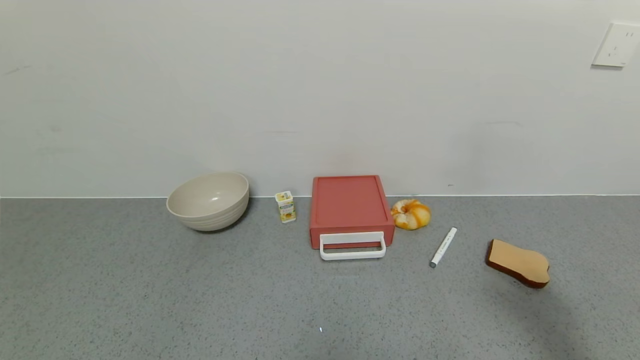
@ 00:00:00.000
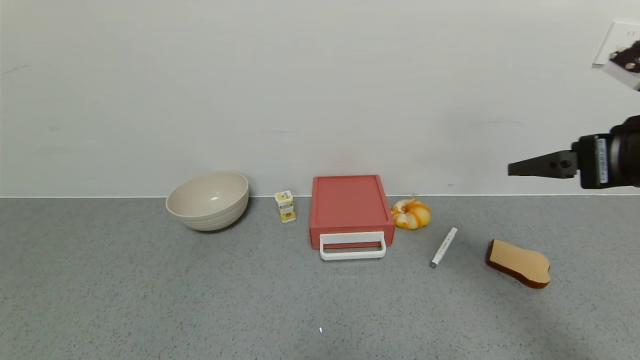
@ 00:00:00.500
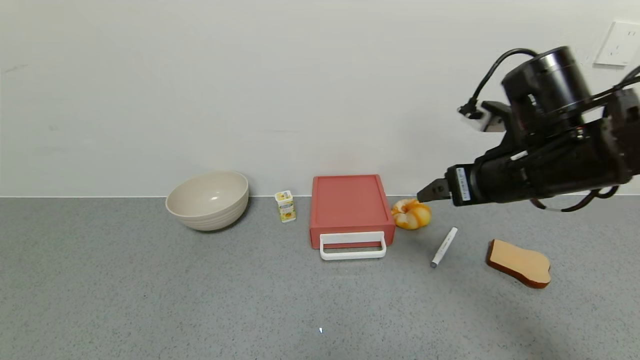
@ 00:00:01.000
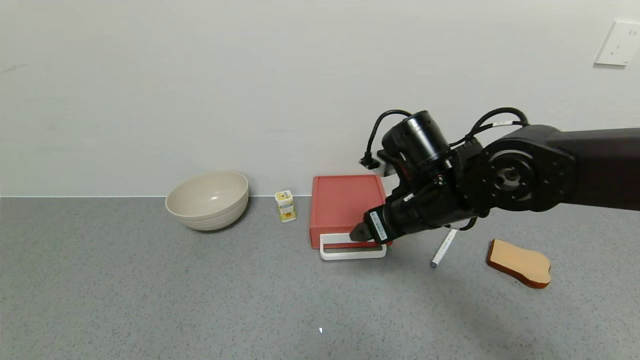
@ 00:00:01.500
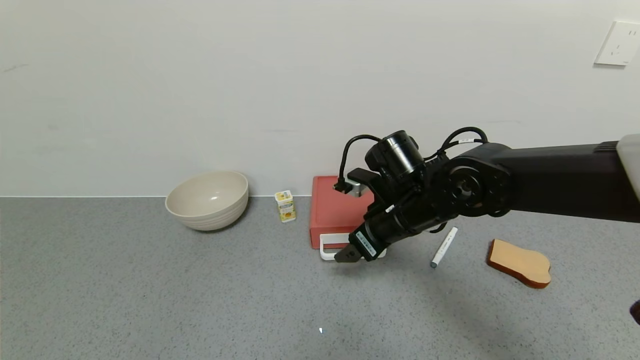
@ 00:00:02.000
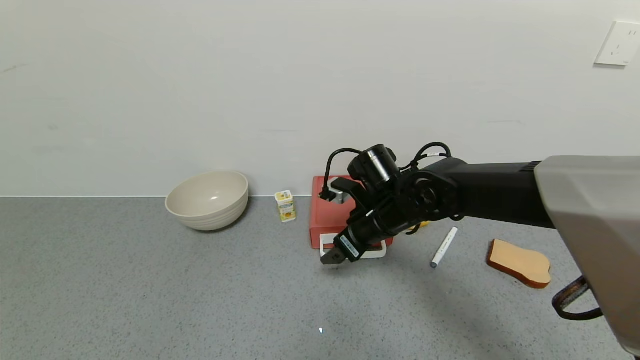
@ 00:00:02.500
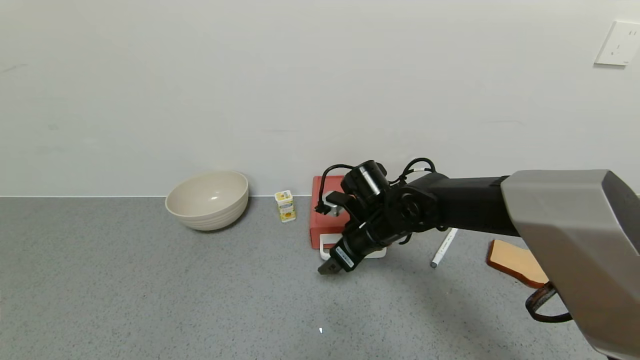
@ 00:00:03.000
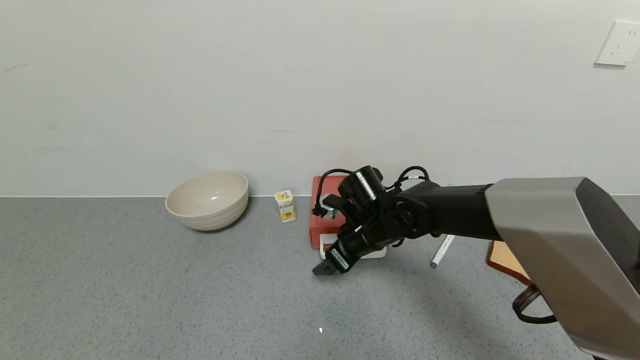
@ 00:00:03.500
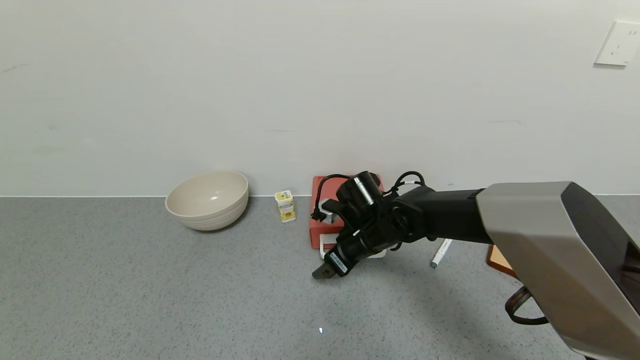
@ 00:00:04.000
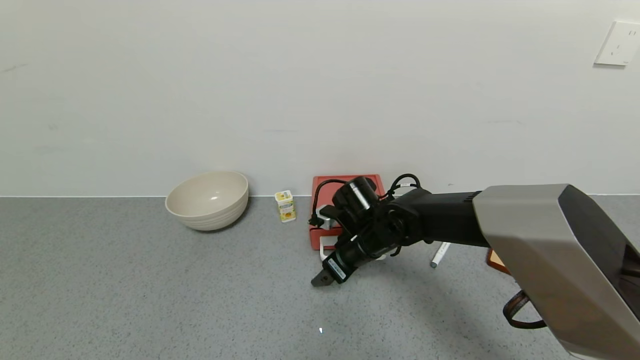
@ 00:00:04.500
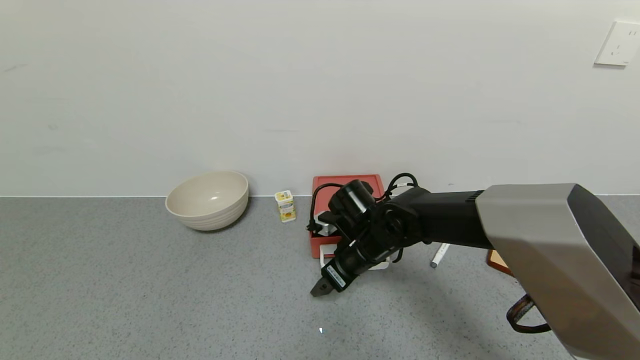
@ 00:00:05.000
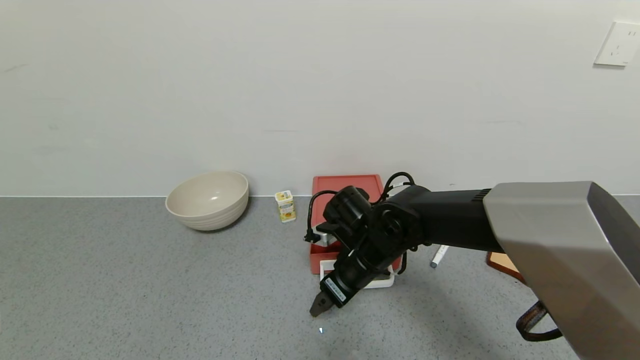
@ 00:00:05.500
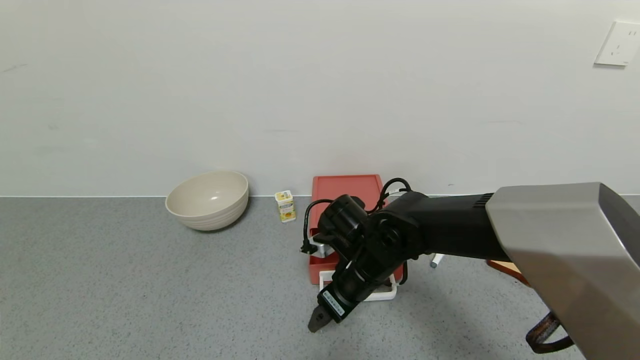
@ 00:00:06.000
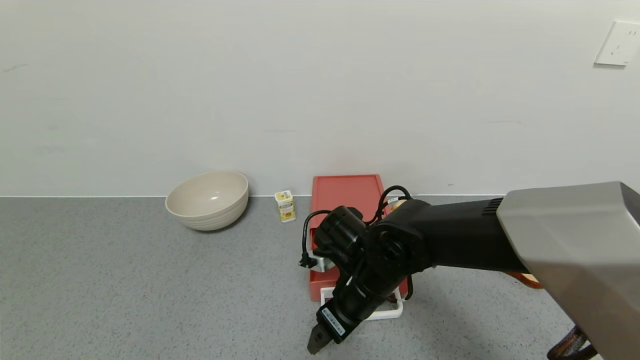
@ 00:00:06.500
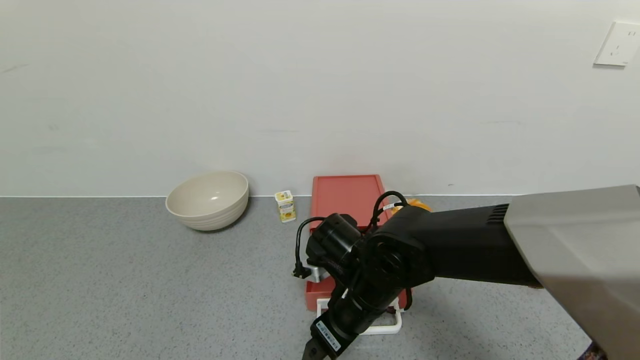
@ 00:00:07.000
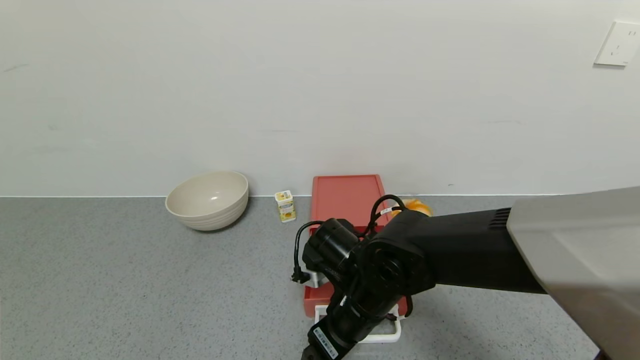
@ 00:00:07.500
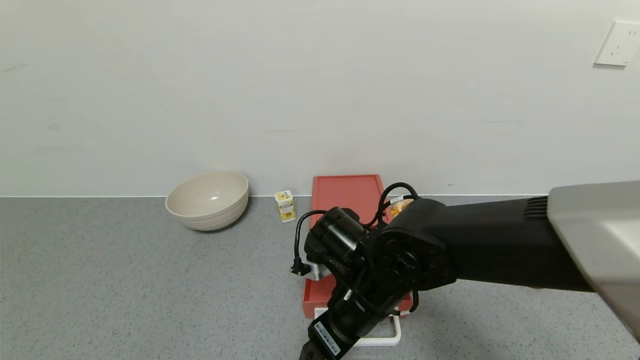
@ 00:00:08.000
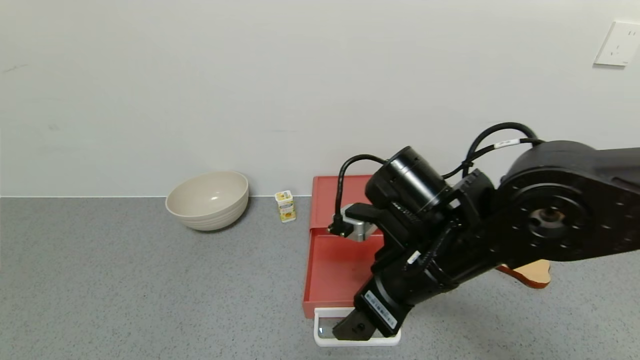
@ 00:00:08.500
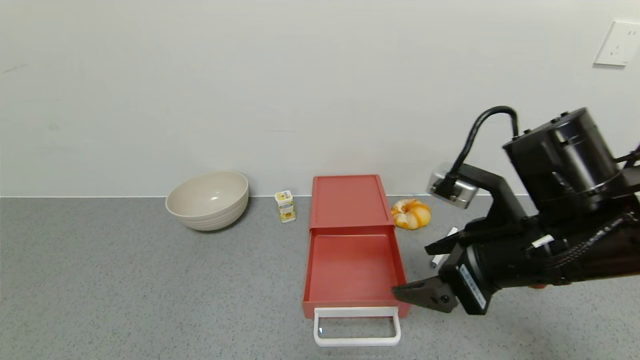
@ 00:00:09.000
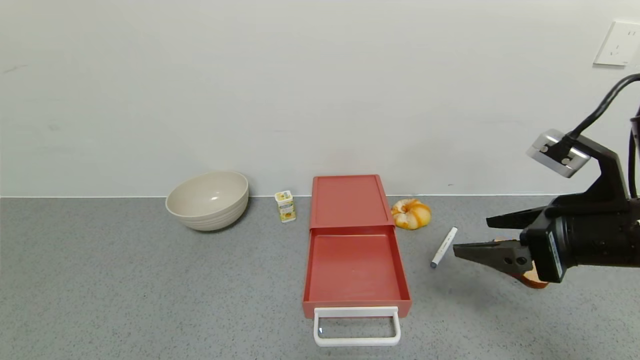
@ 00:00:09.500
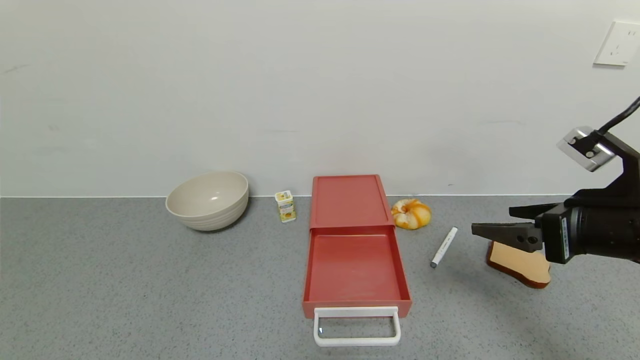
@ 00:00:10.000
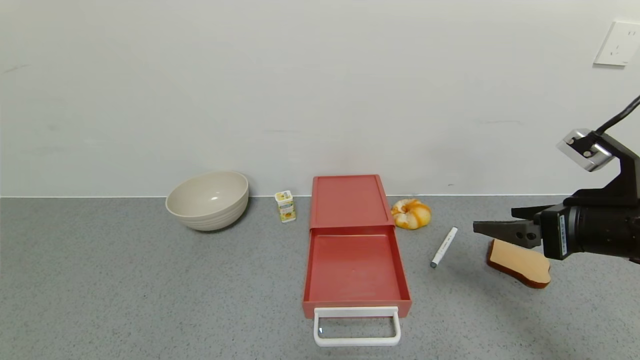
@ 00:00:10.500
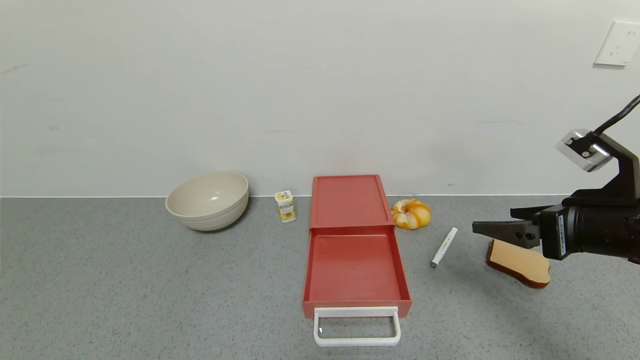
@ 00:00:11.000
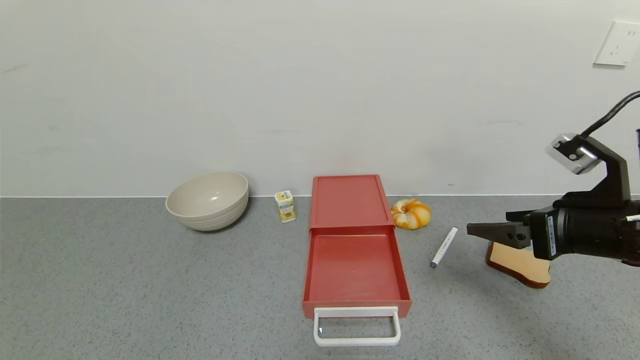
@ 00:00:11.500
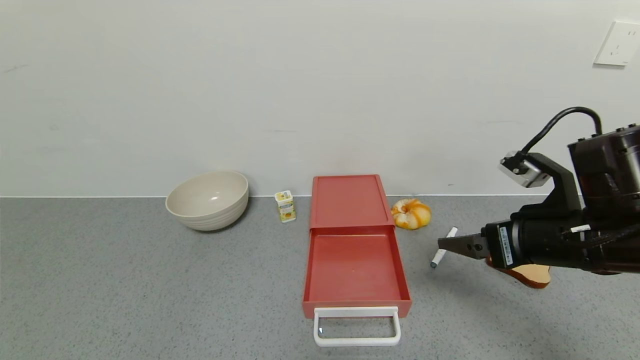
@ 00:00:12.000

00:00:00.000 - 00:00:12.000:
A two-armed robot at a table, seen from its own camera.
Task of the whole recording: use the gripper to open the drawer and close the red drawer.
Step, 00:00:00.000 - 00:00:08.000: Open the red drawer with the right gripper.
00:00:00.000 - 00:00:02.000: The right gripper travels to the left, forward and downward by about 35 cm.
00:00:02.000 - 00:00:04.000: The right gripper heads downward, covering some 10 cm.
00:00:04.000 - 00:00:06.000: The right gripper heads backward, covering some 5 cm.
00:00:06.000 - 00:00:08.000: The right gripper moves backward, about 5 cm.
00:00:08.000 - 00:00:10.000: The right gripper goes about 25 cm to the right and upward.
00:00:10.000 - 00:00:12.000: The right gripper changes place by approximately 5 cm.

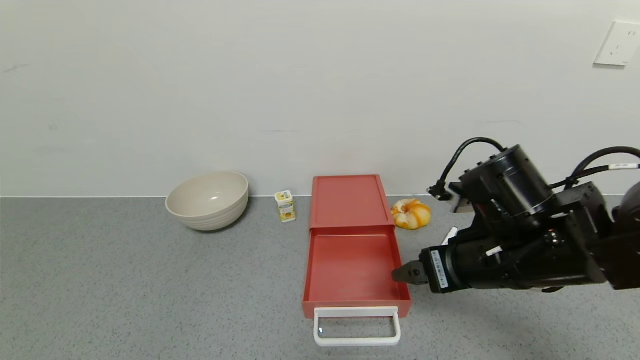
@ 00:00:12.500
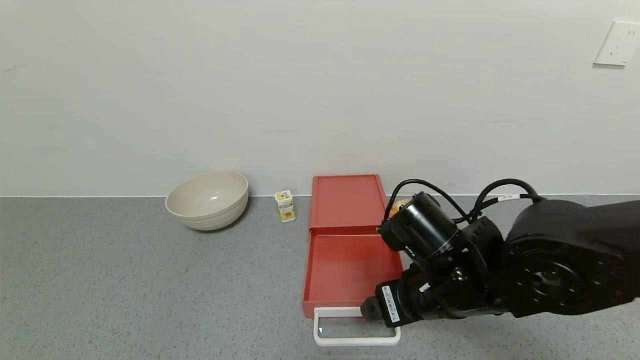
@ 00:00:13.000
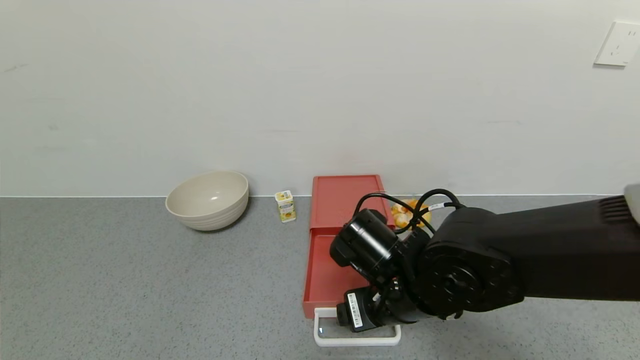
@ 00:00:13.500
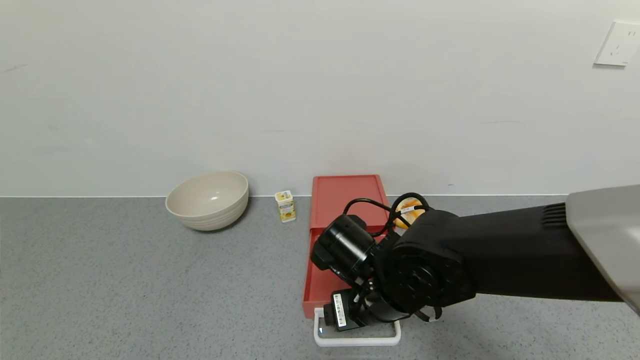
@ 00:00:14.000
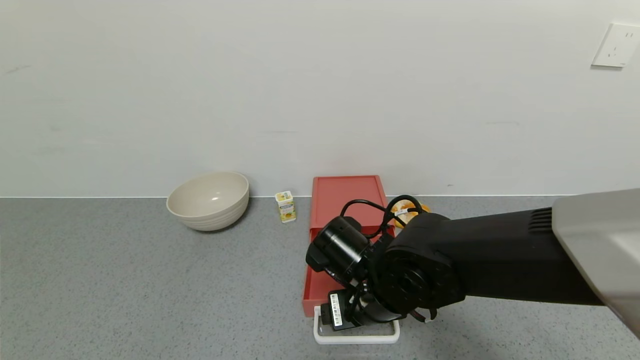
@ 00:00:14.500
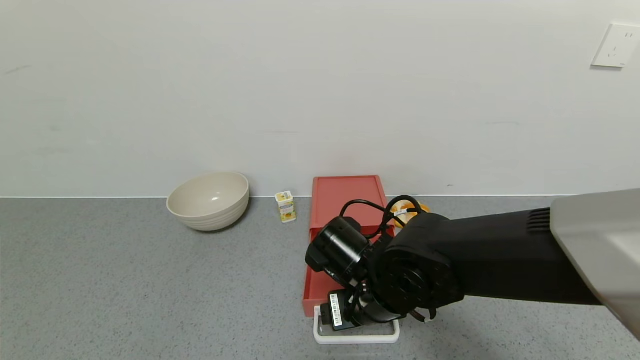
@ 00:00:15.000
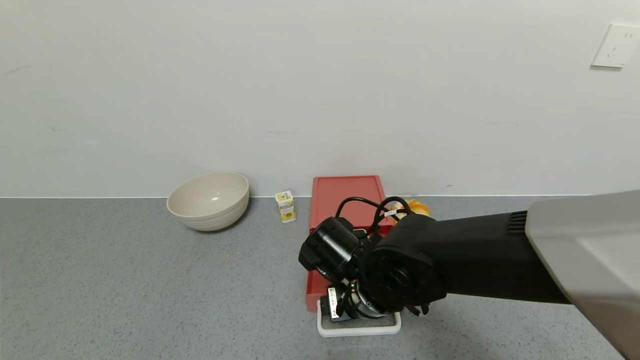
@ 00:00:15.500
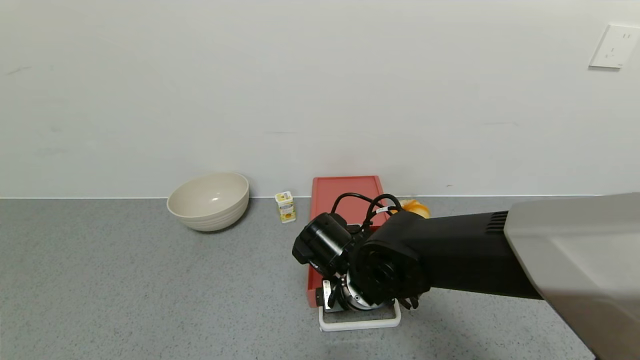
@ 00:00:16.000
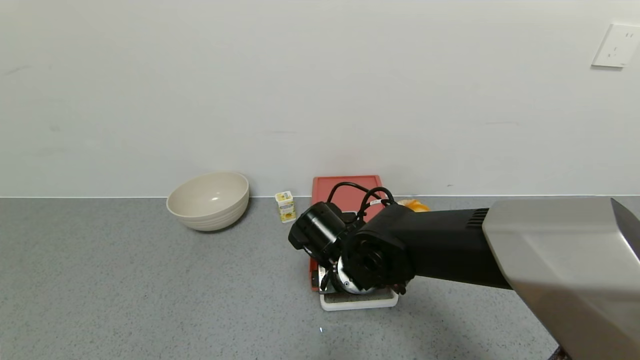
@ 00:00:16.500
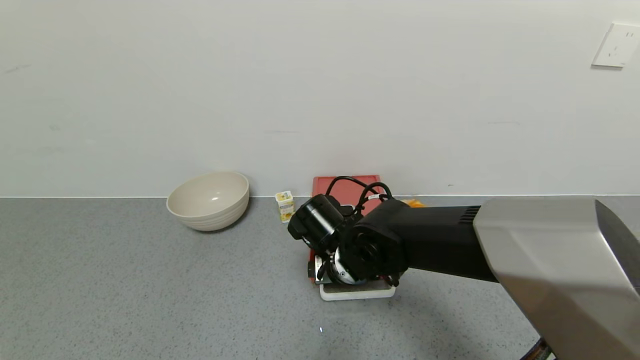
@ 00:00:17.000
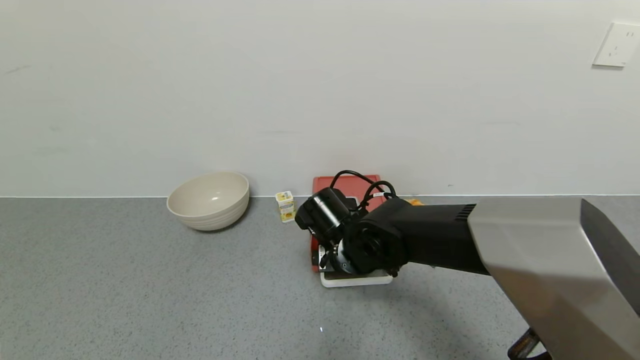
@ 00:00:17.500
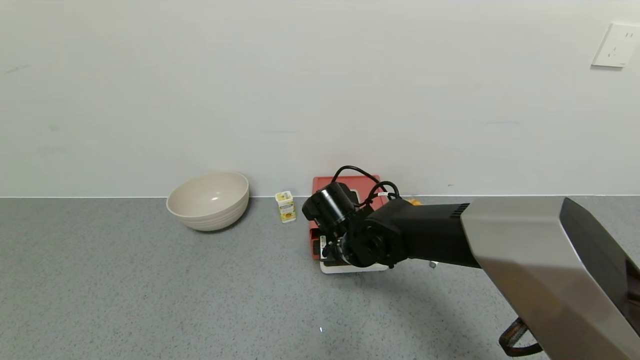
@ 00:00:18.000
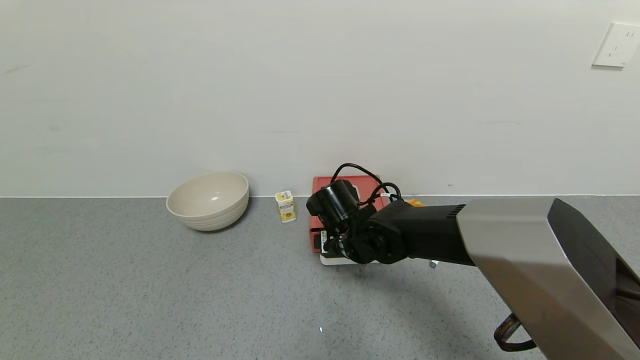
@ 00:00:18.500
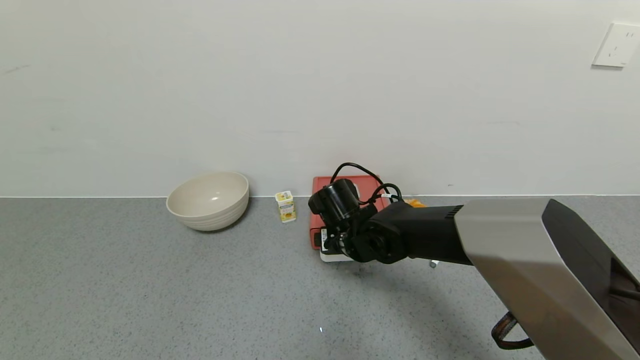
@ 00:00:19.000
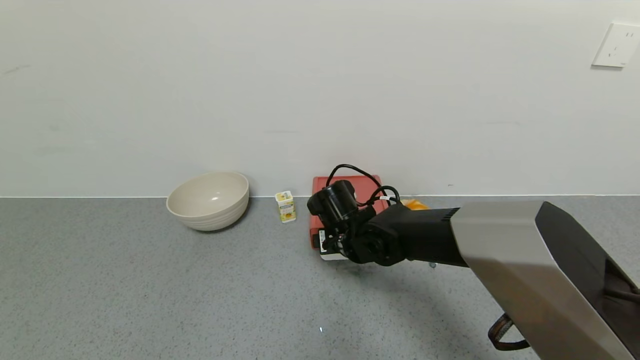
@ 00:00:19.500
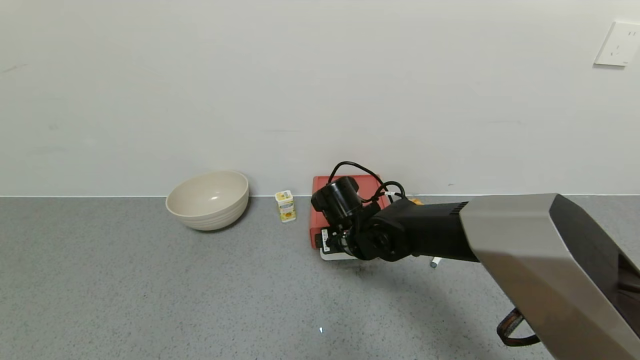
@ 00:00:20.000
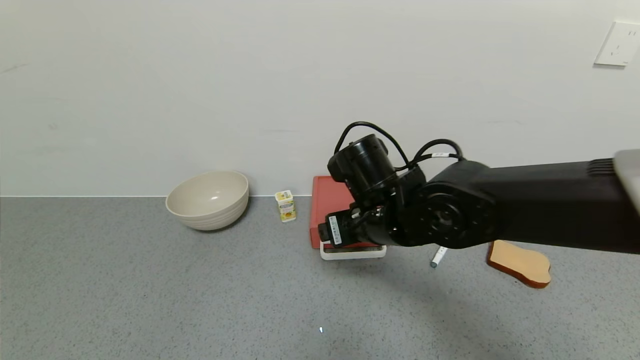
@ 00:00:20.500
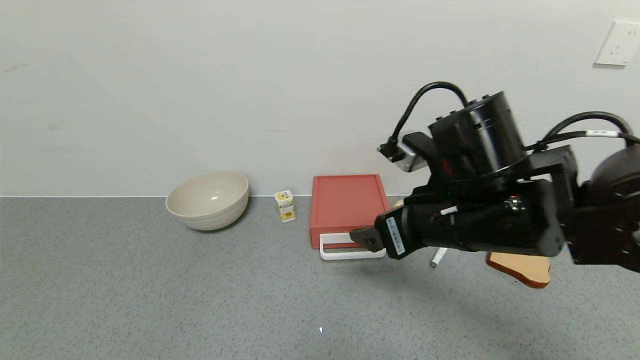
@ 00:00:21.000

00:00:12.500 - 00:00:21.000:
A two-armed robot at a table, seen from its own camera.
Task of the whole recording: use the gripper to open the drawer and close the red drawer.
Step, 00:00:12.500 - 00:00:20.000: Close the red drawer with the right gripper.
00:00:12.500 - 00:00:14.500: The right gripper travels to the left and downward by about 15 cm.
00:00:14.500 - 00:00:16.500: The right gripper moves some 5 cm.
00:00:16.500 - 00:00:19.000: The right gripper goes about 5 cm forward.
00:00:19.000 - 00:00:21.000: The right gripper goes approximately 20 cm upward, backward and to the right.
